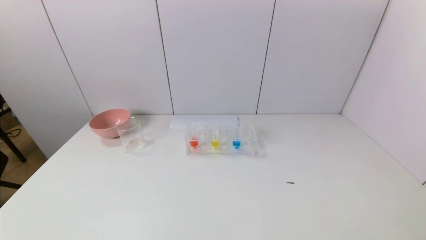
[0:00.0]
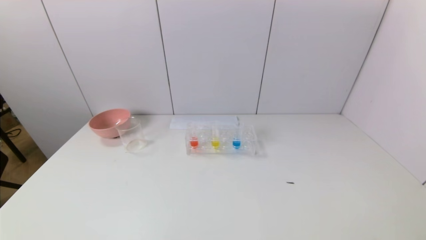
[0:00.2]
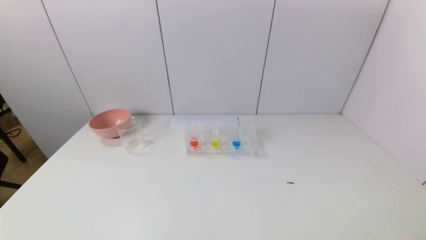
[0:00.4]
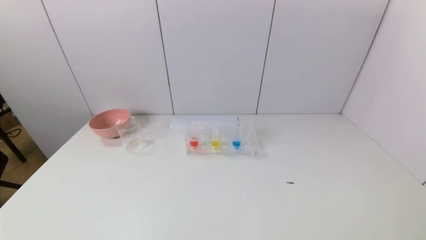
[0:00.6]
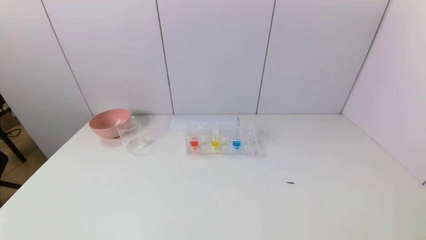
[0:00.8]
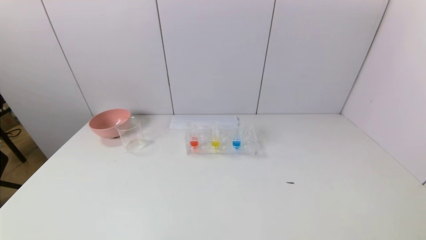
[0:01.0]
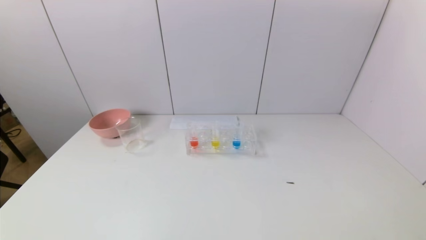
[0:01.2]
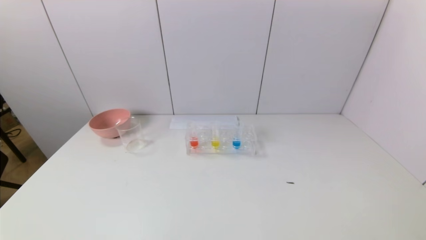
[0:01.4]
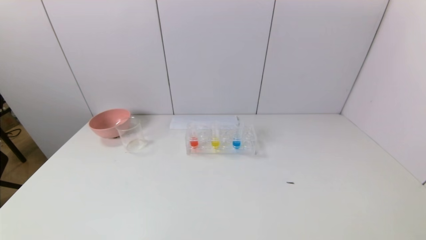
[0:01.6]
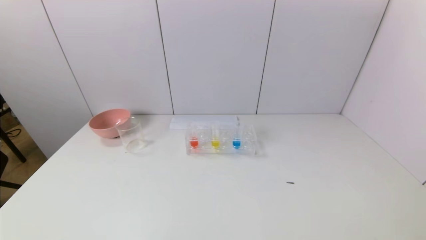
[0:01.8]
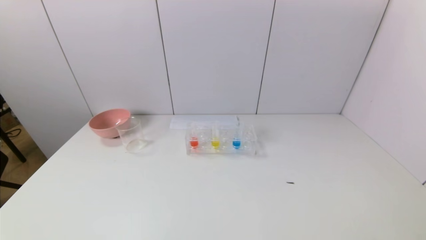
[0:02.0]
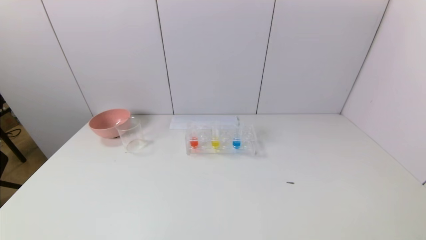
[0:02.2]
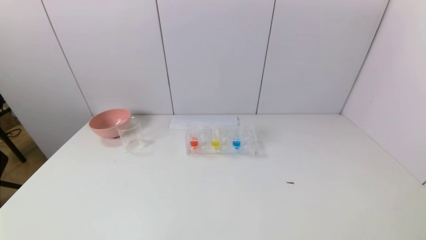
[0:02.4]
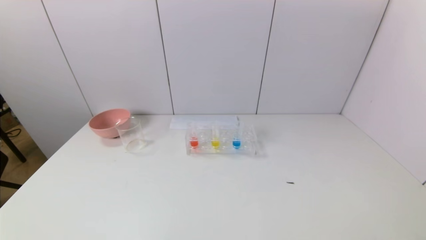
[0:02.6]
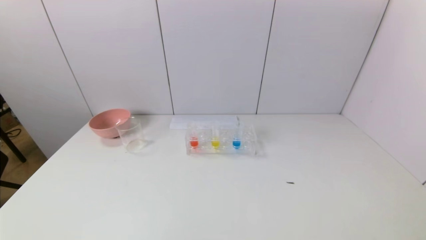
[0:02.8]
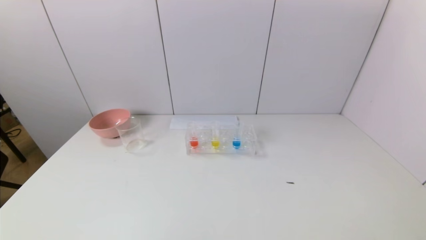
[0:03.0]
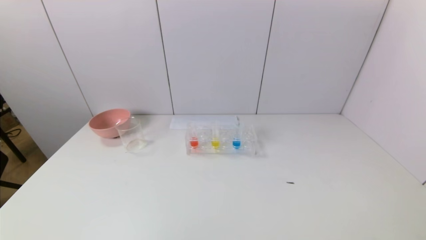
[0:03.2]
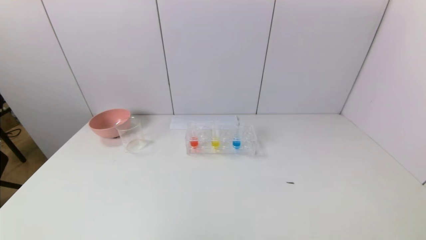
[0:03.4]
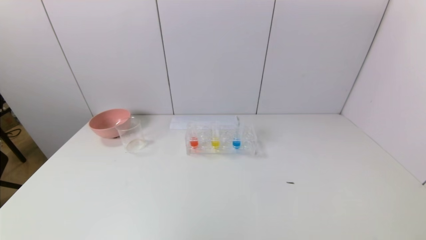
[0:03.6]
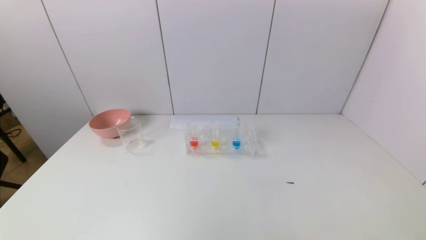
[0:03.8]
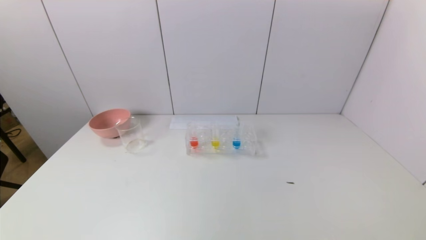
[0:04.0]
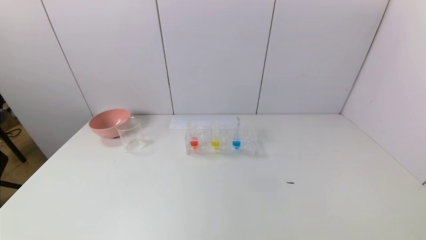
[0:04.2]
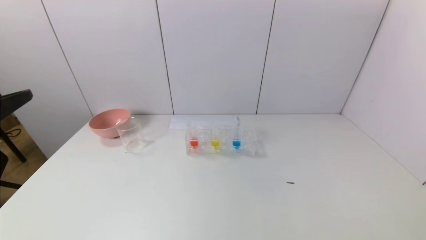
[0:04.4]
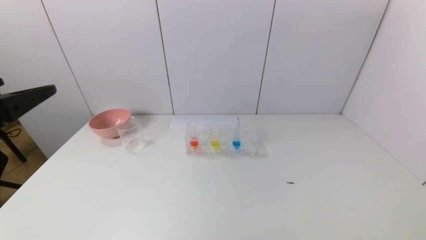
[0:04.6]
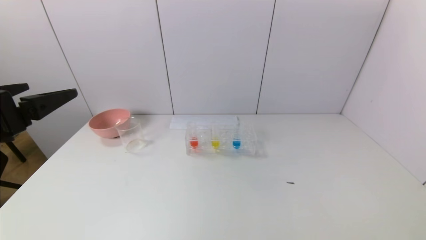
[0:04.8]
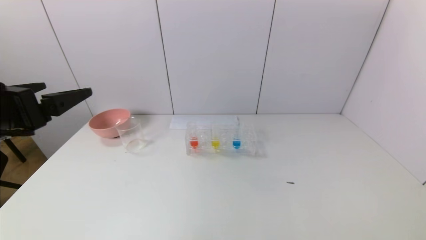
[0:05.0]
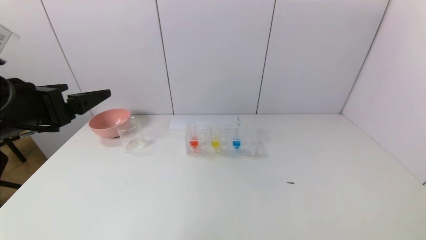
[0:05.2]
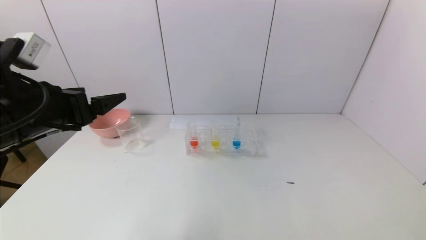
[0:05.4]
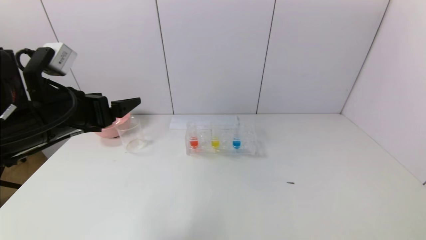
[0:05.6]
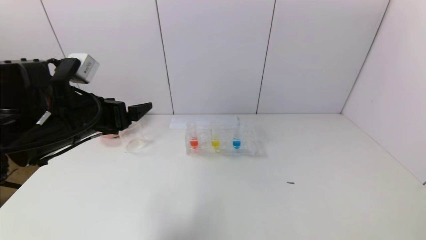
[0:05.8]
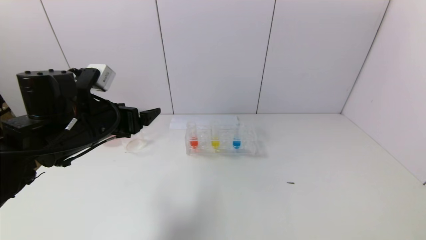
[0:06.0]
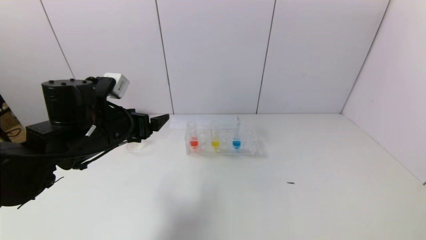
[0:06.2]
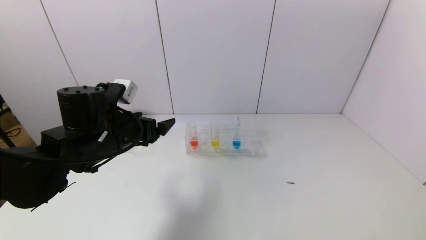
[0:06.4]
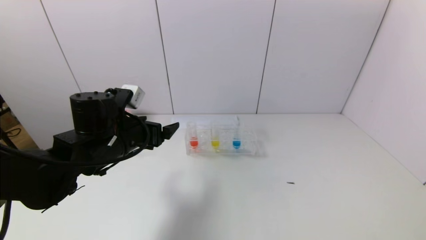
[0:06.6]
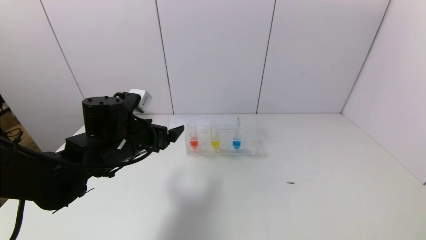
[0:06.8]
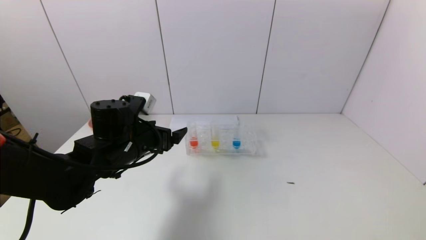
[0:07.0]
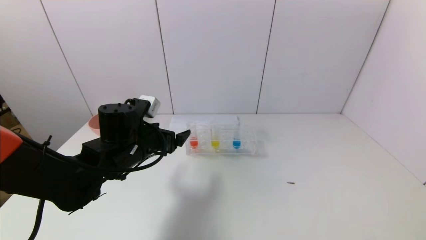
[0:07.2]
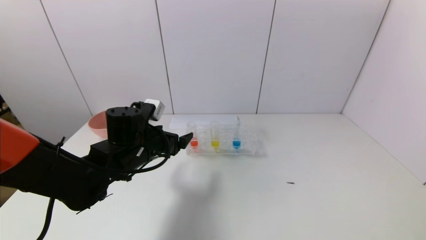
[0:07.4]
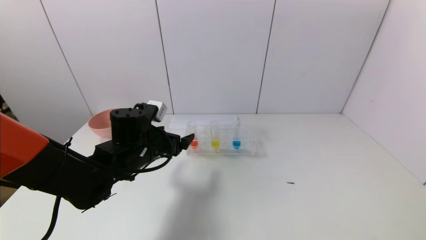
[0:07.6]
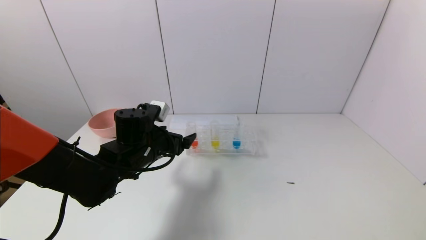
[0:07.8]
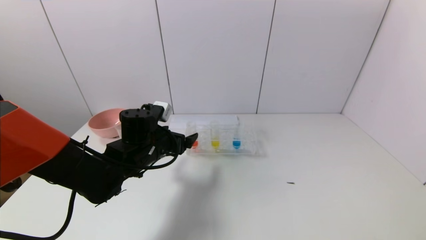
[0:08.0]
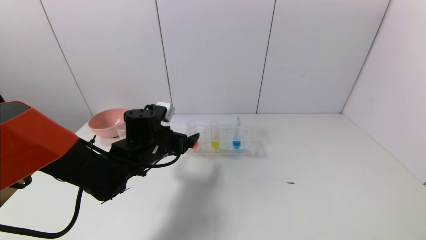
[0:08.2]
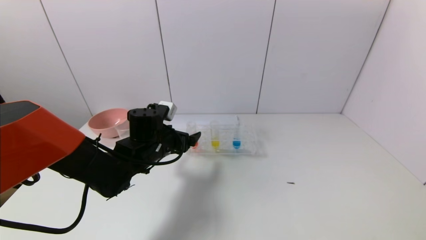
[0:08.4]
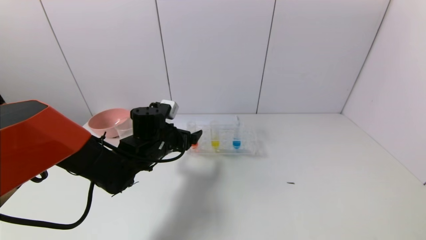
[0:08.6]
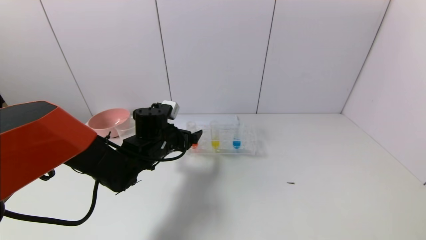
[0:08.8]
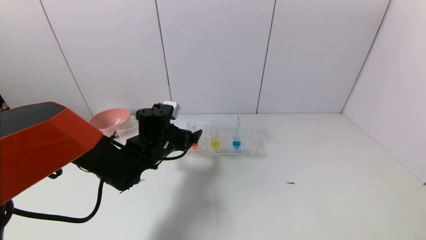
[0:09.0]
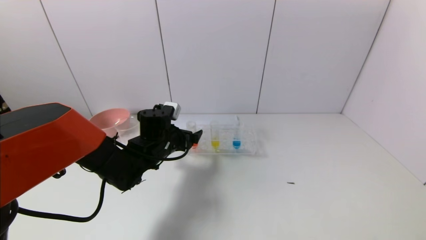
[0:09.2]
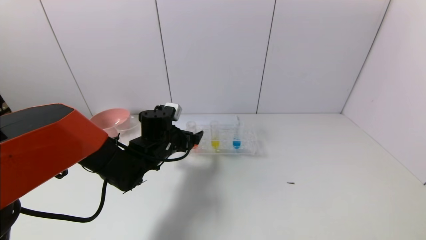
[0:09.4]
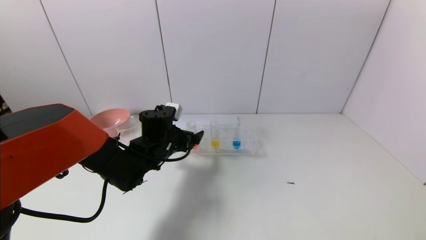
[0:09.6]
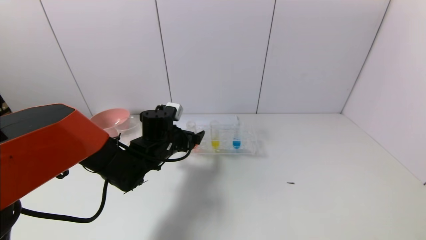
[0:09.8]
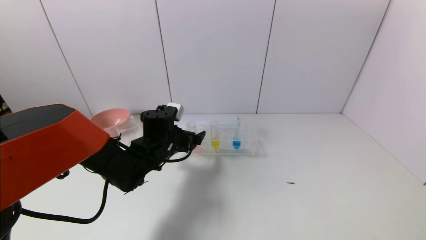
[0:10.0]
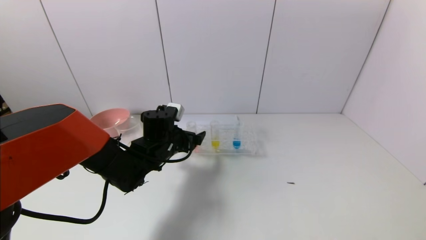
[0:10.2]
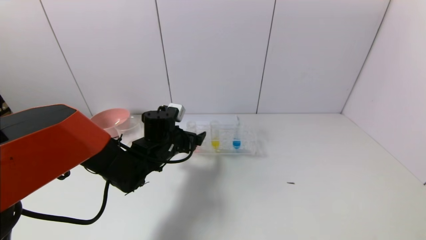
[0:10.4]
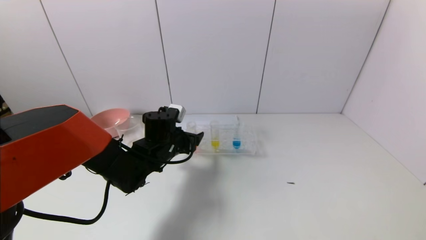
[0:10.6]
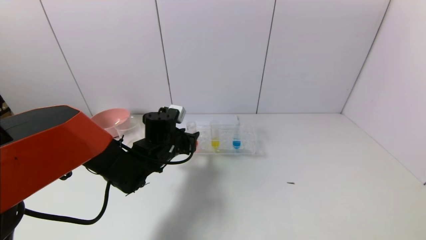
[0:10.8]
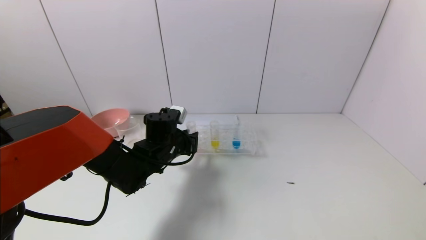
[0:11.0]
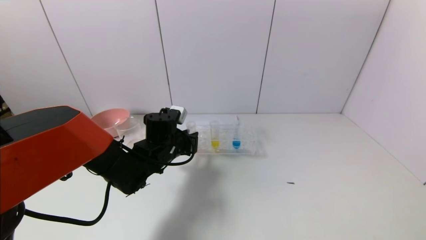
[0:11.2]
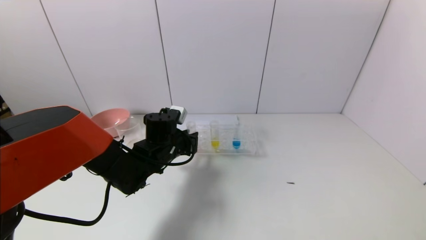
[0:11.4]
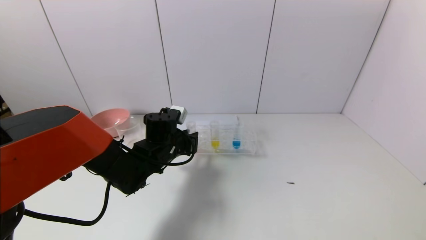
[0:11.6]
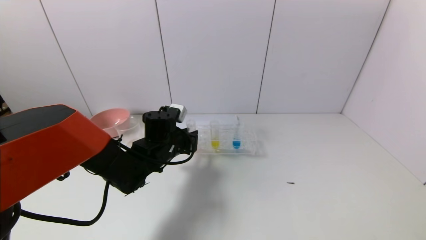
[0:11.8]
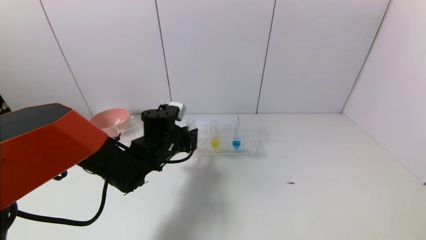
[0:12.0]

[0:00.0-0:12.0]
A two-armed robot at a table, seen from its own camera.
Task of the whole recording: pick up the test tube with yellow pigment and the test tube with red pigment by grippers and pour them into the beaker.
Step, 0:00.0 to 0:11.2: Grasp the red reagent with the left gripper.
0:00.0 to 0:01.6: Both grippers stay put.
0:04.4 to 0:06.0: The left gripper moves forward, to the right and downward, about 20 cm.
0:06.0 to 0:07.6: The left gripper travels downward and to the right by approximately 10 cm.
0:07.6 to 0:09.0: The left gripper shifts by about 5 cm.
0:09.0 to 0:10.4: The two grippers keep their place.
0:10.4 to 0:12.0: The left gripper closes up.

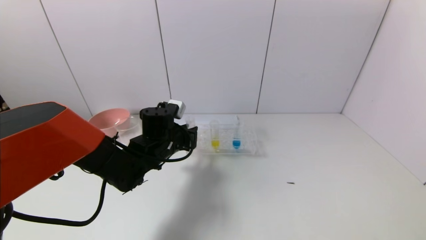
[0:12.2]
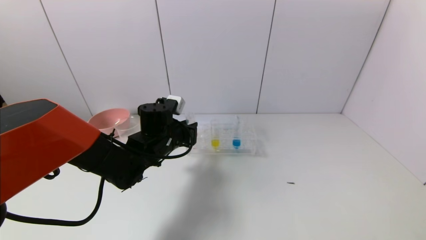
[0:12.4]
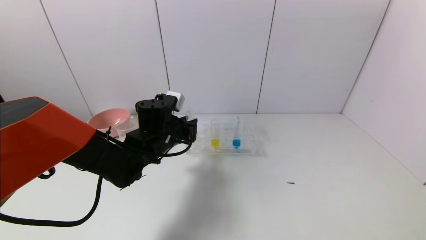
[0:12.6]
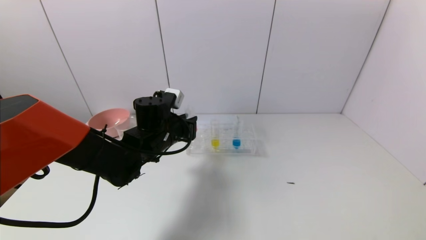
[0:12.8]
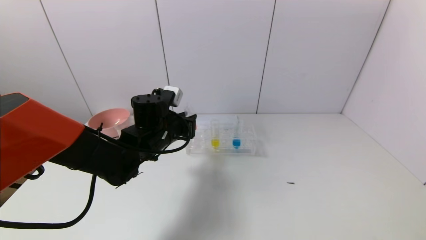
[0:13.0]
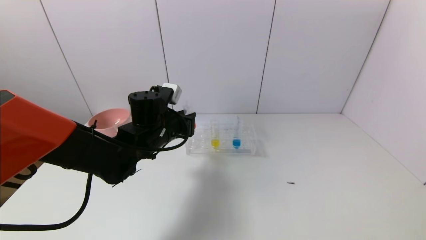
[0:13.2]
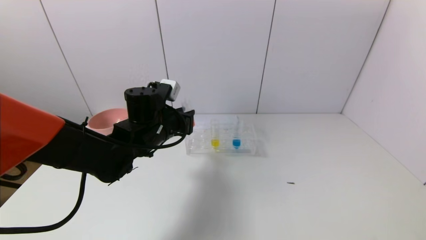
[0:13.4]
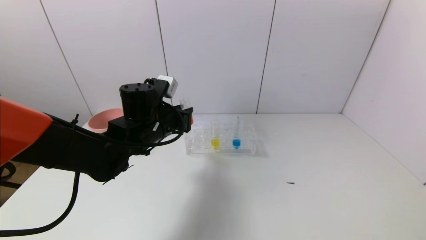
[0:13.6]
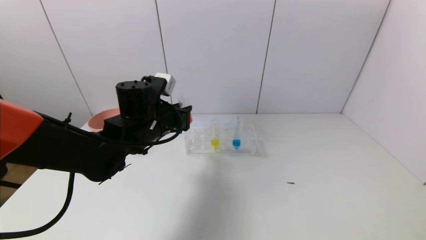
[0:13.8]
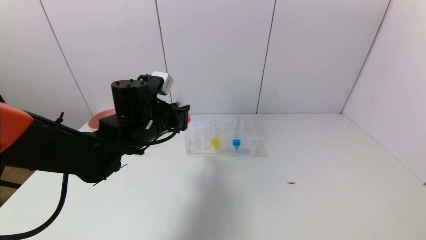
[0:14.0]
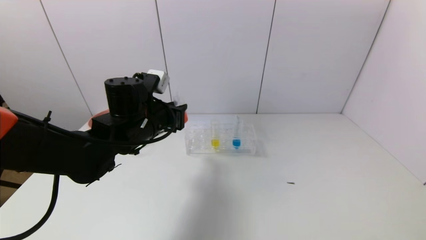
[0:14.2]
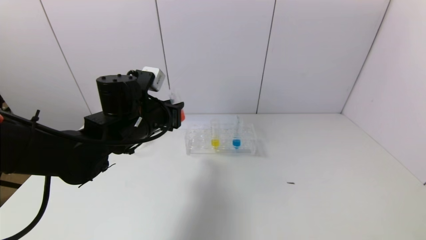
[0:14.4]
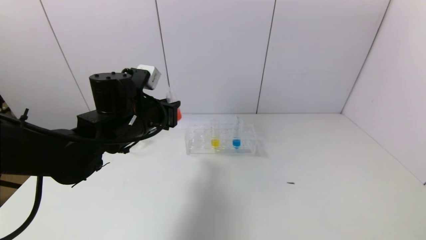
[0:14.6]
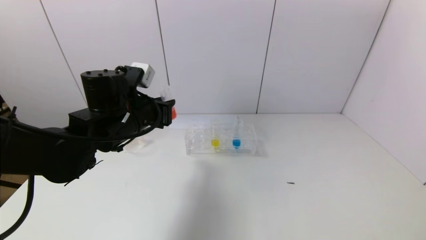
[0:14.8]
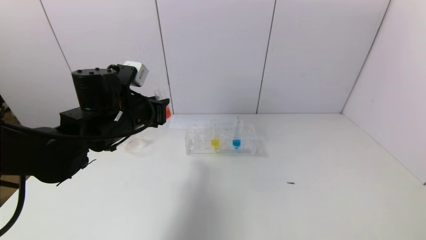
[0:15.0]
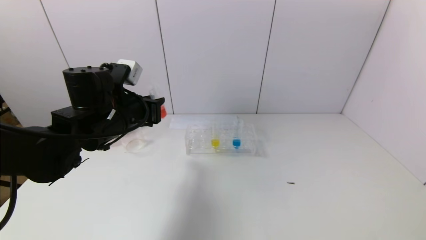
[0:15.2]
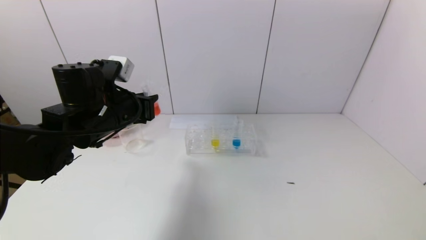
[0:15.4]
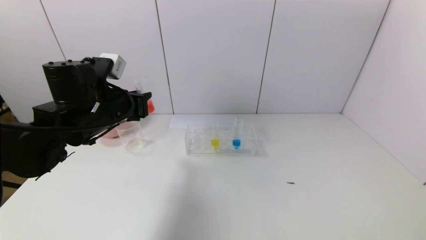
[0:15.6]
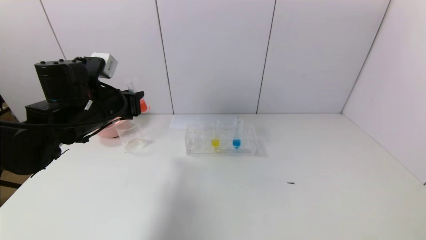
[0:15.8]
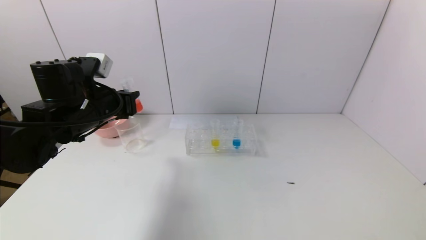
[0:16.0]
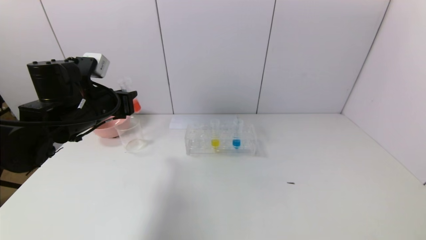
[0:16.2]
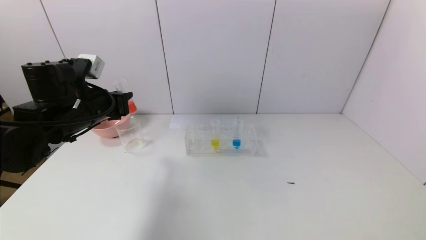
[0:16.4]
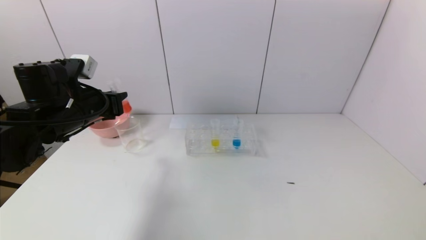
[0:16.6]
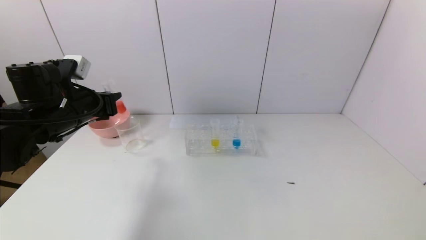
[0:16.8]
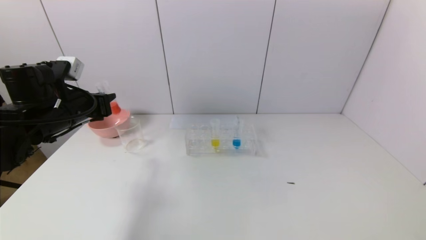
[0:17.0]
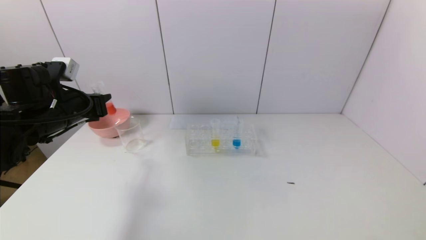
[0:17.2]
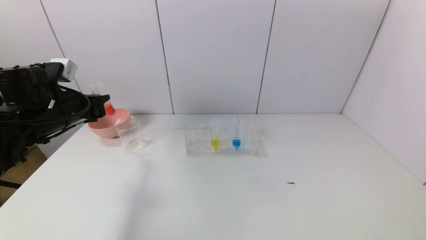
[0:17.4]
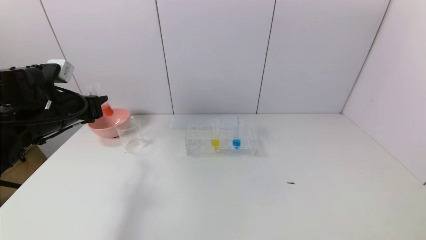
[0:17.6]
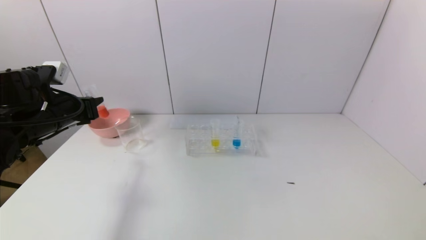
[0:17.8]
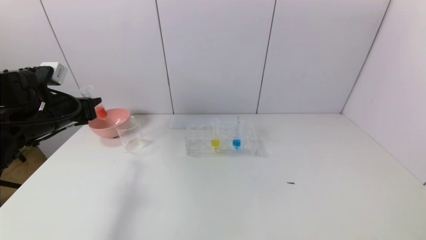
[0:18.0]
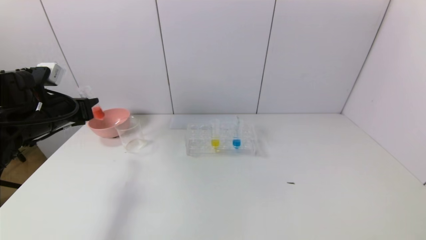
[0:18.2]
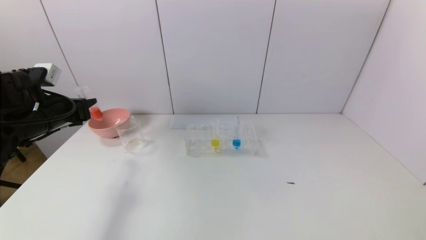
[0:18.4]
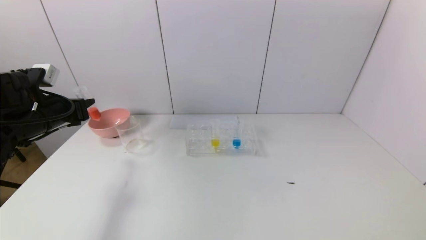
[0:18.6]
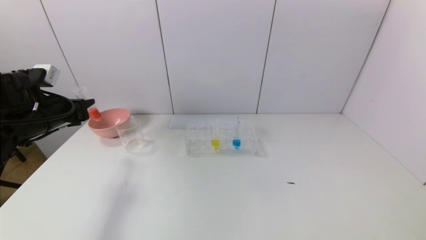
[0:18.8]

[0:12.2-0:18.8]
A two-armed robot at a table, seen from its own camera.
Task of the whole recording: pick up the test tube with yellow pigment and the test tube with red pigment by grippers and pour them into the beaker.
0:12.2 to 0:13.8: The left gripper goes roughly 5 cm upward.
0:13.8 to 0:15.4: The left gripper goes roughly 5 cm to the left.
0:15.4 to 0:17.2: The left gripper travels to the left by approximately 10 cm.
0:17.2 to 0:18.8: The grippers stay close to where they were, moving slightly.
